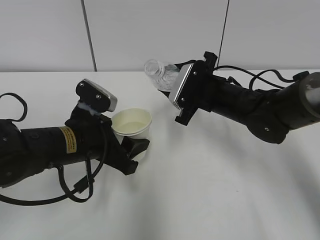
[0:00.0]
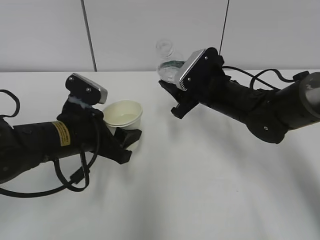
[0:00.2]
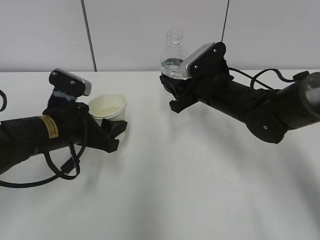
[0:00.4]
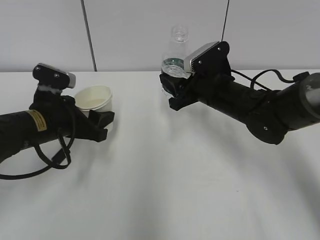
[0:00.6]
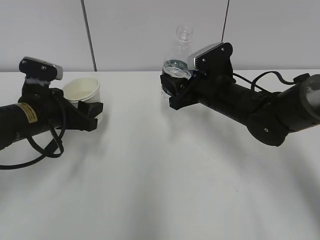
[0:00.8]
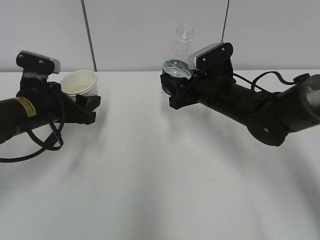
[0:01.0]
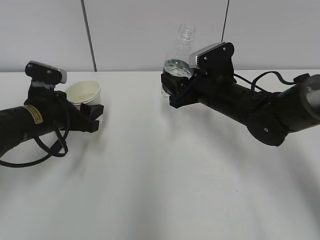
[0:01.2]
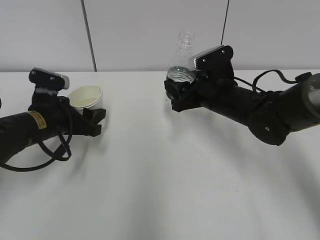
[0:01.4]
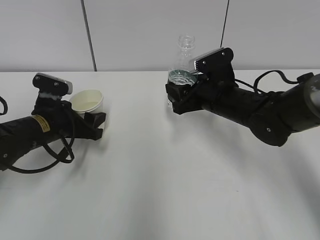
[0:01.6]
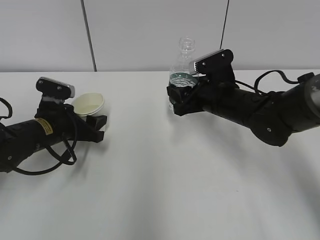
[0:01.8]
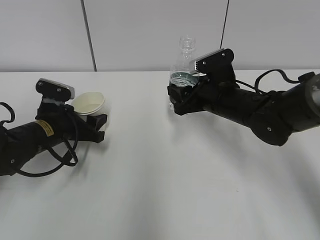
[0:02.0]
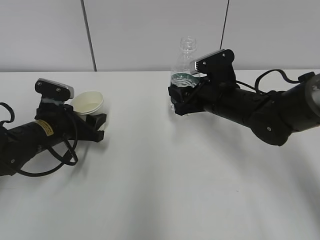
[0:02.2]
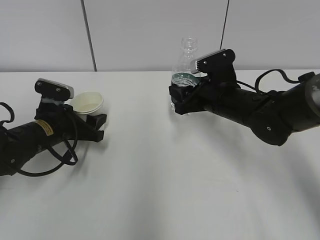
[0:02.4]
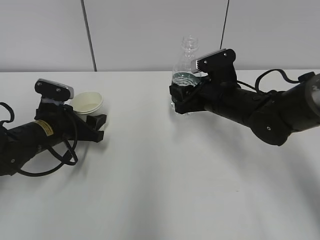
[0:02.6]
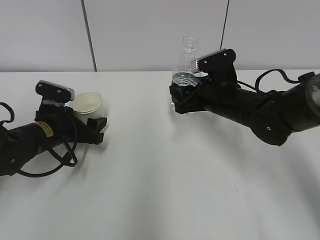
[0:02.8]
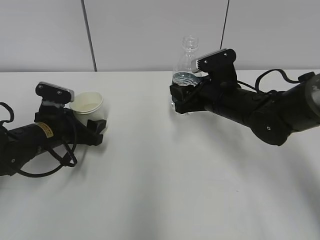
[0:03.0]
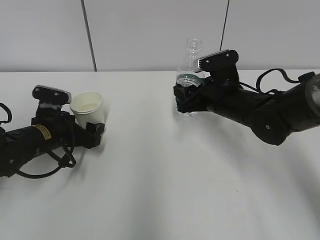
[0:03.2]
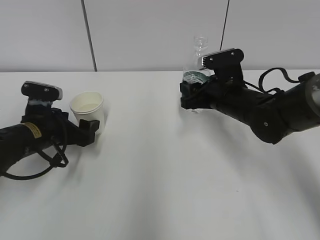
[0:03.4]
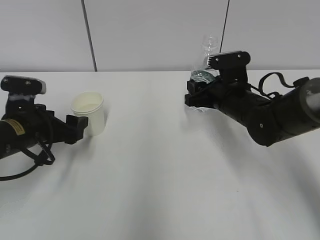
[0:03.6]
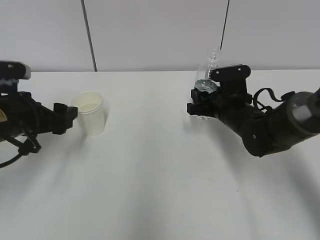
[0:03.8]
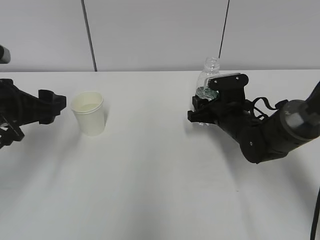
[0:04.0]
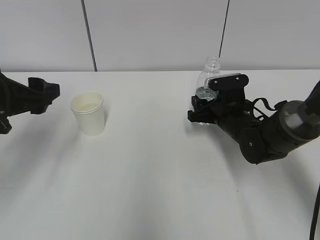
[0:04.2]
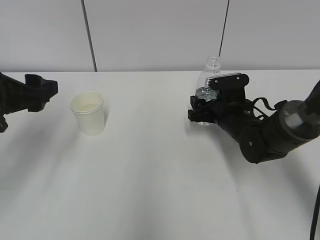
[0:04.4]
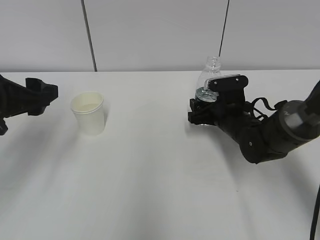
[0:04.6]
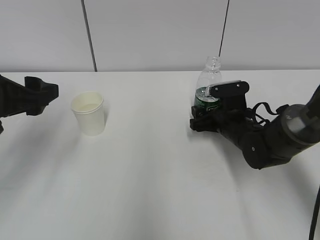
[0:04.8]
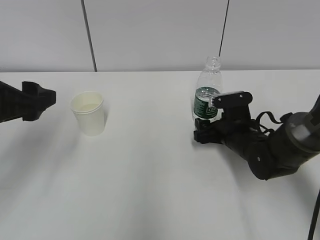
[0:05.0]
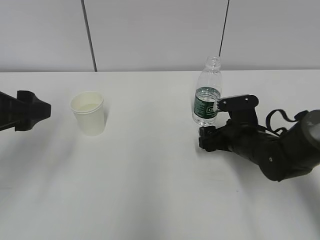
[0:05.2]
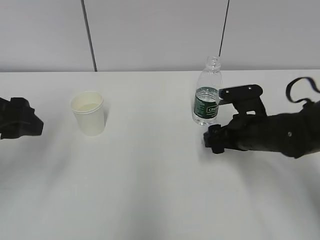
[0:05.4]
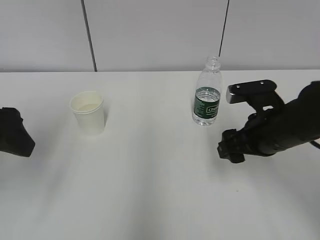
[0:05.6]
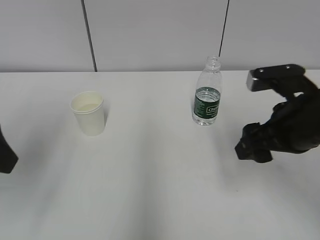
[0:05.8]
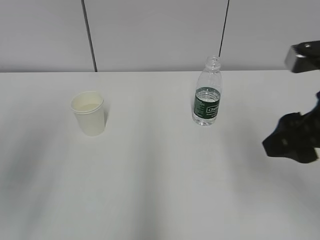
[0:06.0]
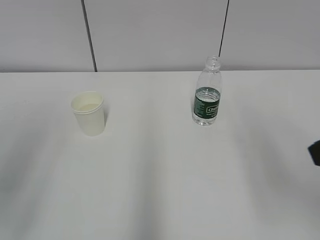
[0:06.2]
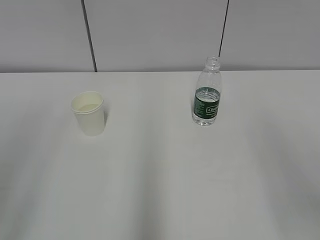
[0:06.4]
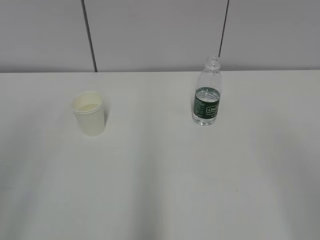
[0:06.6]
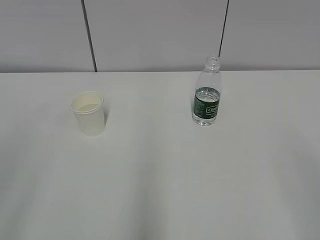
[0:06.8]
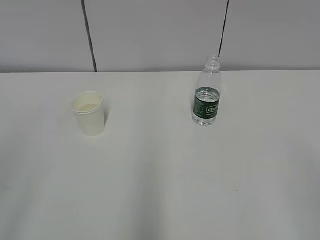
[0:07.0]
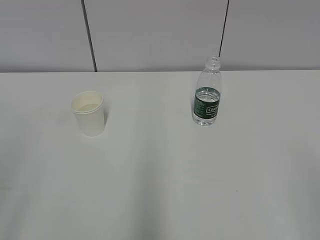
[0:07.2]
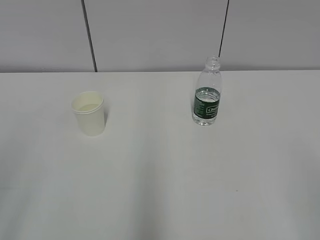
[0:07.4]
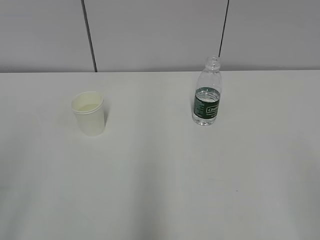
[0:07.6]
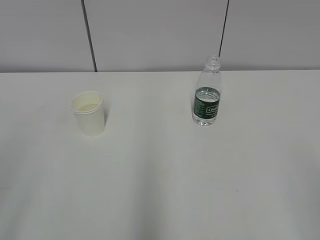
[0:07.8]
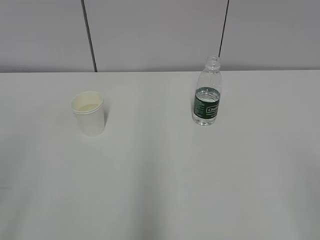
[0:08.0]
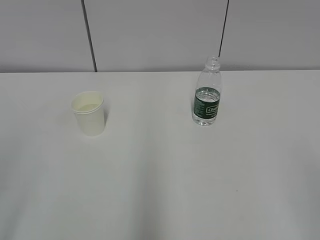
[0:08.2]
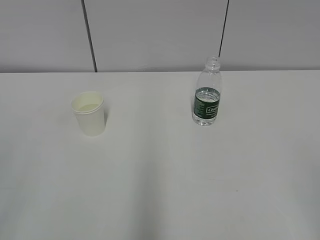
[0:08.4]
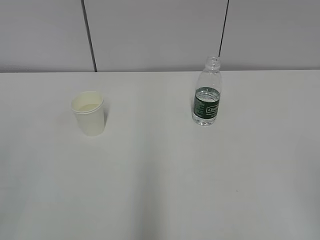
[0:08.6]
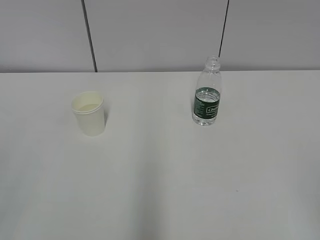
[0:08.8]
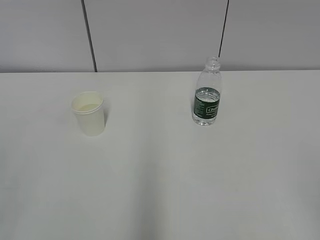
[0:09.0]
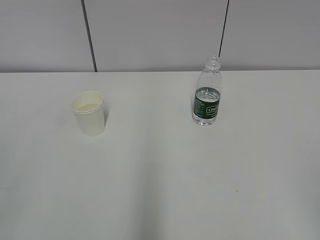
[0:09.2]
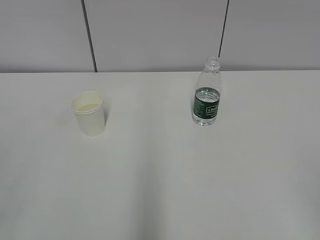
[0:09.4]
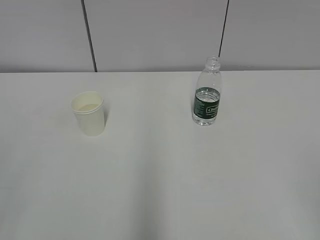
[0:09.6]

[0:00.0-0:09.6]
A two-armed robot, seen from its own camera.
0:00.0 to 0:01.6: The left gripper moves to the left and forward, roughly 10 cm.
0:01.6 to 0:03.2: The left gripper opens up.
0:03.2 to 0:04.8: The left gripper is displaced upward and backward by some 20 cm. Meanwhile the right gripper moves downward, roughly 5 cm, and opens.
0:04.8 to 0:06.4: The left gripper moves backward and upward, roughly 20 cm; the right gripper shifts some 40 cm backward and upward.

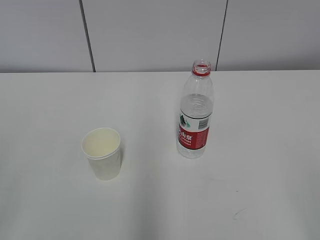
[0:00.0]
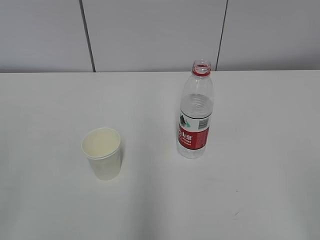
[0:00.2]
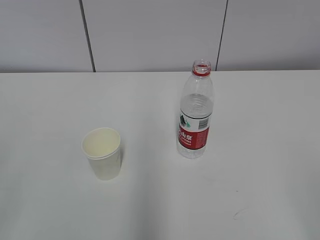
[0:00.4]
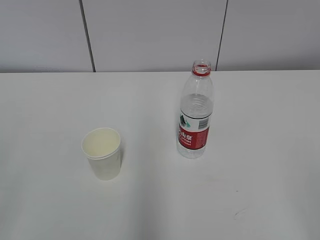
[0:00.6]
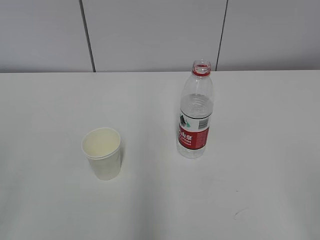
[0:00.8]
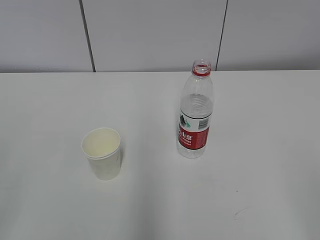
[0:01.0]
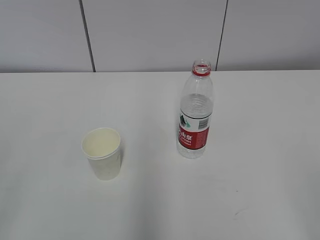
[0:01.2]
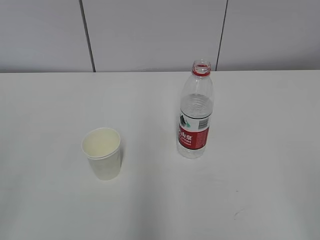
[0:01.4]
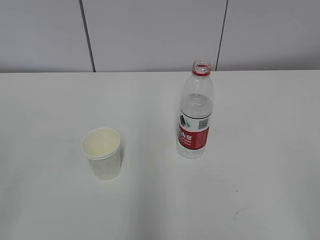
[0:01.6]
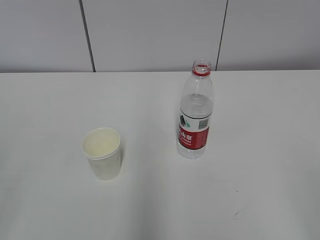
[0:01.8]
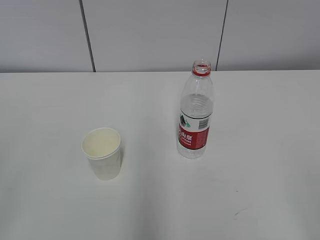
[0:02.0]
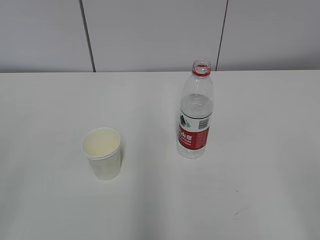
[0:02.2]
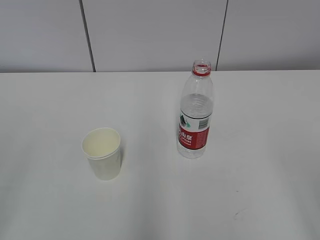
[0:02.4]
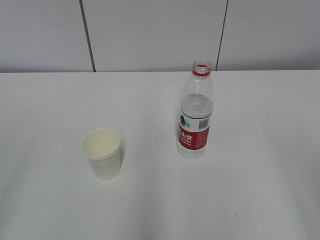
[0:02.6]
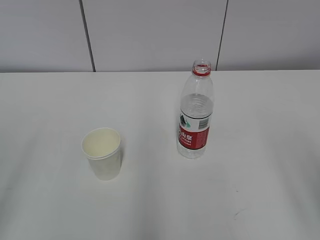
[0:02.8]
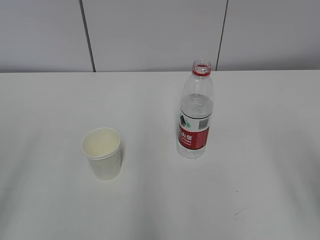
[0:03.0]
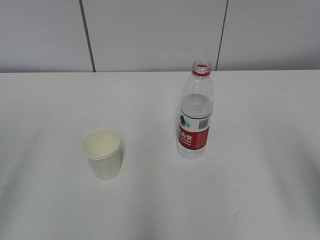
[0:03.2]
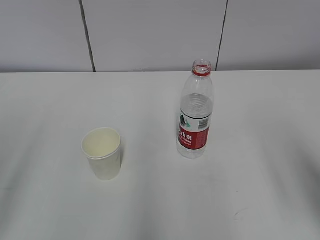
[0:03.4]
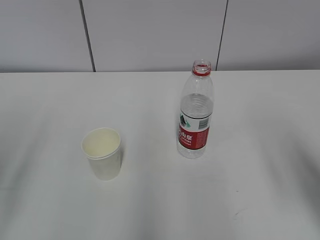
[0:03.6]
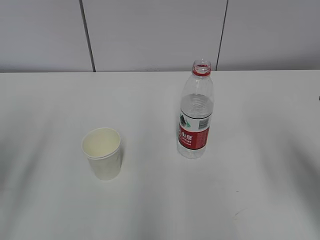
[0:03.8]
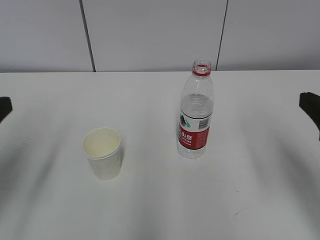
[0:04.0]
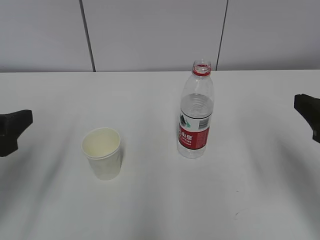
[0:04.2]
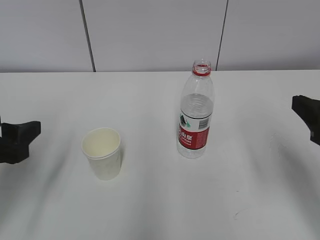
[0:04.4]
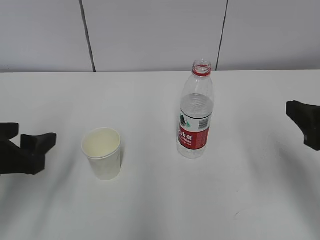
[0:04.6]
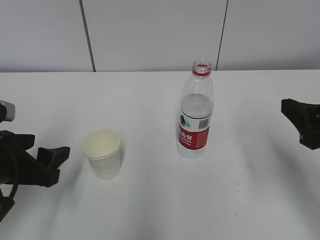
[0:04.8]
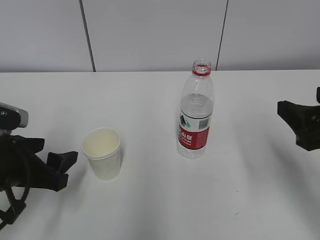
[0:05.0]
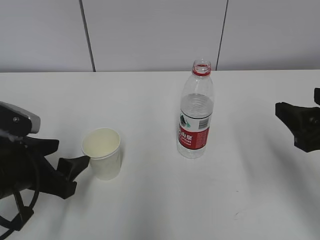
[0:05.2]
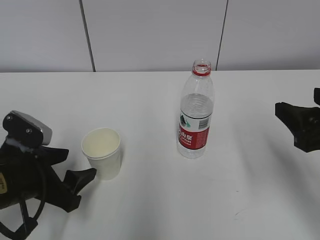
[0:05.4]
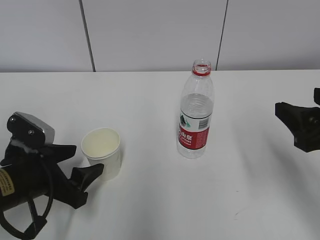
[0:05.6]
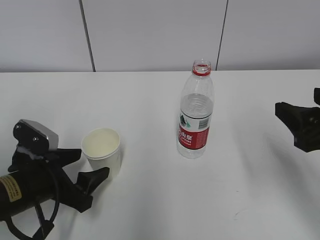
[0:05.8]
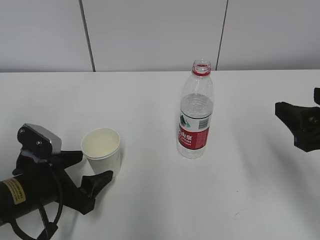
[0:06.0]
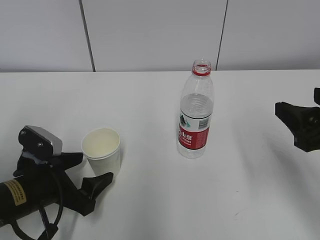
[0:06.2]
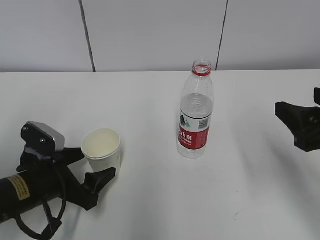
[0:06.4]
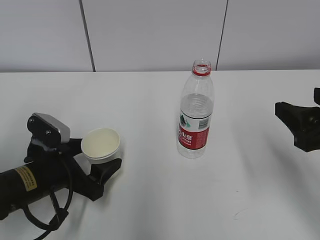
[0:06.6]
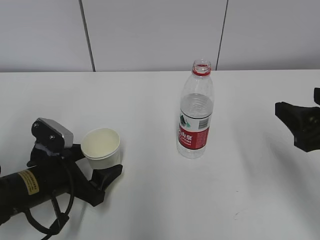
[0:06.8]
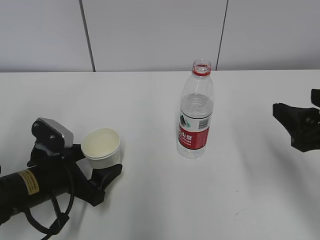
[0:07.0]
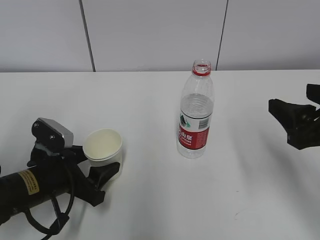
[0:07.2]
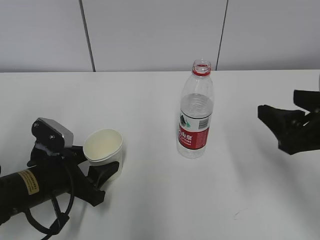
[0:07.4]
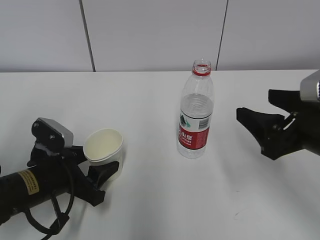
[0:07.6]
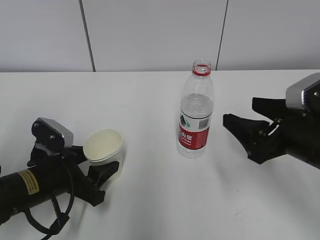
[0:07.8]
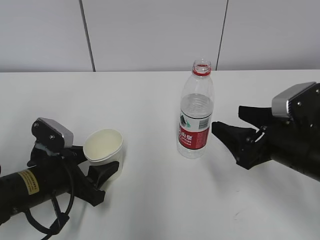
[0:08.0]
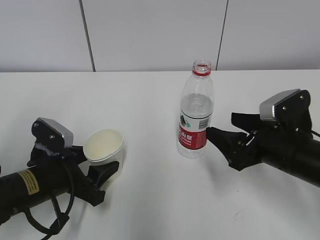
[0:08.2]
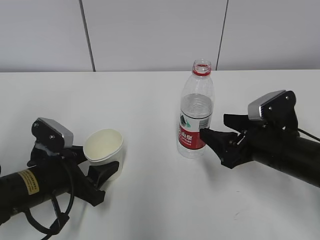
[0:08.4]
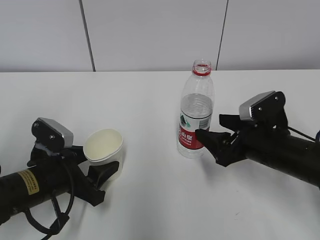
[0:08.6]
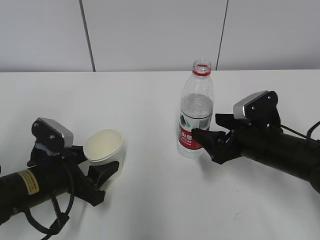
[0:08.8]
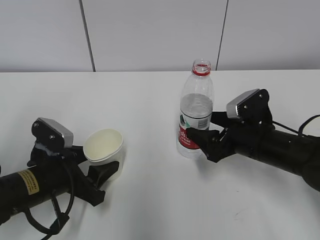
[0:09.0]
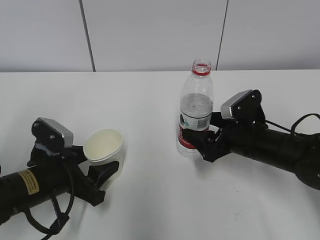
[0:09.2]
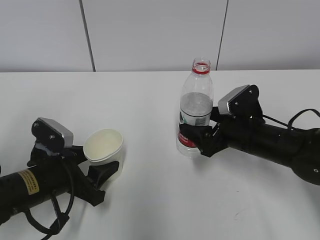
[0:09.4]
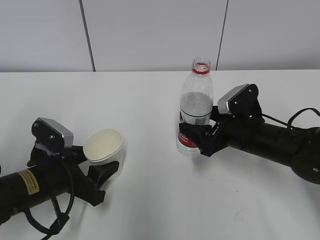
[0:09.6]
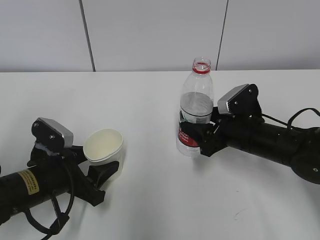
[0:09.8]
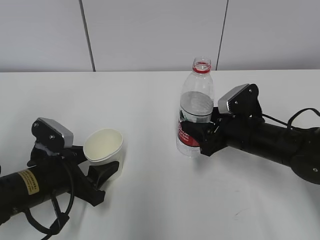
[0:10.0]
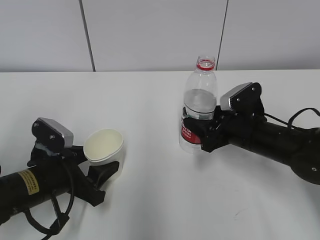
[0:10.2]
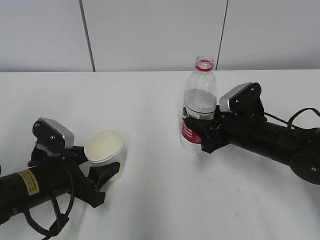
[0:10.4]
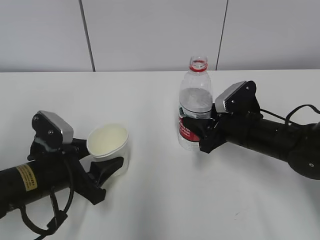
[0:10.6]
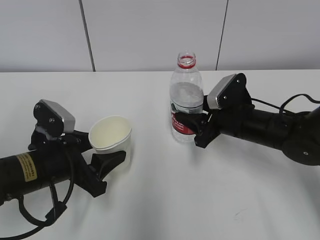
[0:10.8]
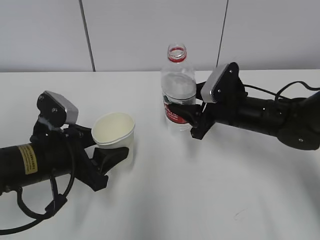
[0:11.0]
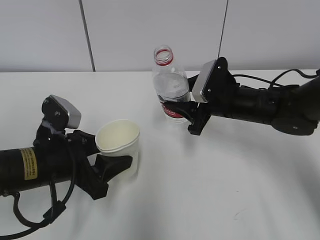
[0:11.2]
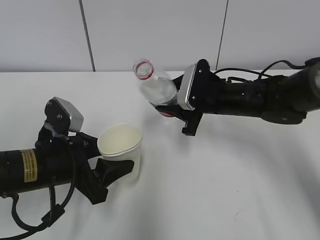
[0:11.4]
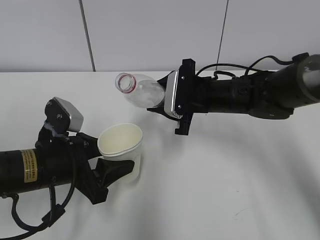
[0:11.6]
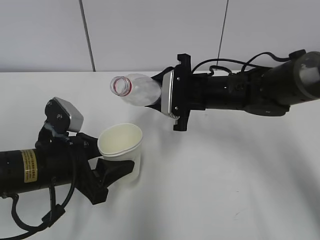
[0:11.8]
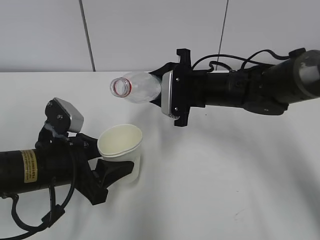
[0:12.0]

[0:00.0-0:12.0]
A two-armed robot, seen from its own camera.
Step, 0:00.0 to 0:08.6: Grab the paper cup with the left hand.
Step, 0:08.8 to 0:10.8: Lift the paper cup with the left hand.
0:03.0 to 0:04.4: The right gripper is displaced forward by about 10 cm. Meanwhile the left gripper moves forward and downward, approximately 15 cm.
0:04.4 to 0:06.0: The left gripper moves downward and to the right, roughly 15 cm, and opens up.
0:06.0 to 0:07.6: The left gripper closes.
0:07.6 to 0:09.0: The right gripper shifts some 15 cm downward and forward.
0:09.0 to 0:10.4: The right gripper closes its fingers.
0:10.4 to 0:12.0: The right gripper goes about 10 cm to the left, upward and forward.

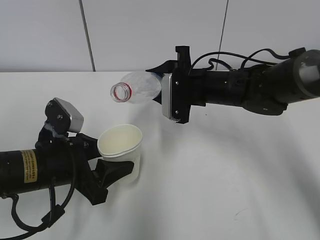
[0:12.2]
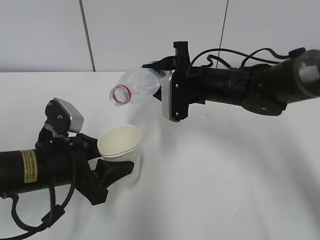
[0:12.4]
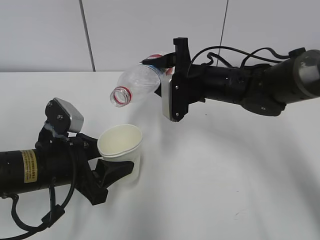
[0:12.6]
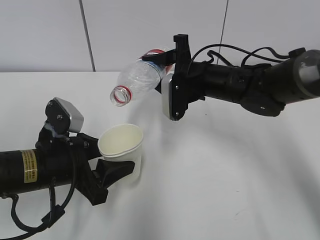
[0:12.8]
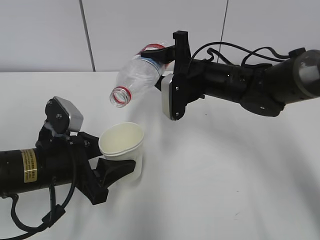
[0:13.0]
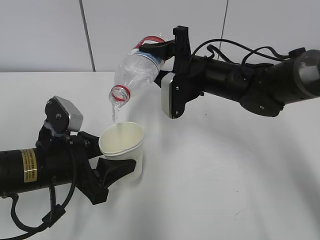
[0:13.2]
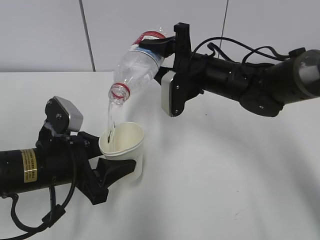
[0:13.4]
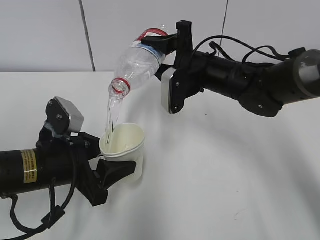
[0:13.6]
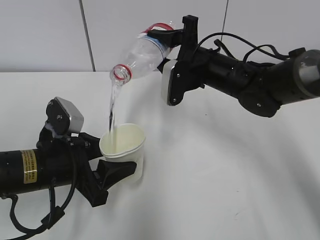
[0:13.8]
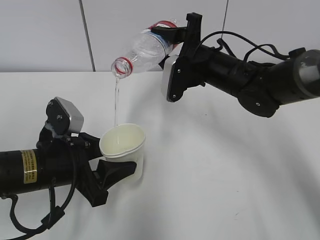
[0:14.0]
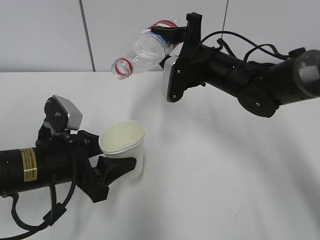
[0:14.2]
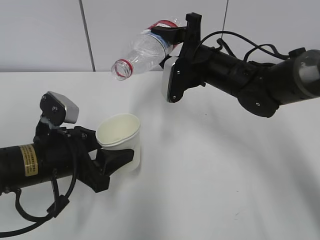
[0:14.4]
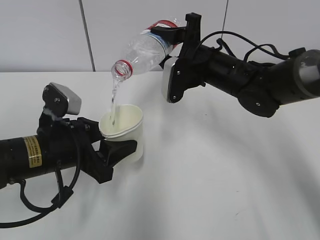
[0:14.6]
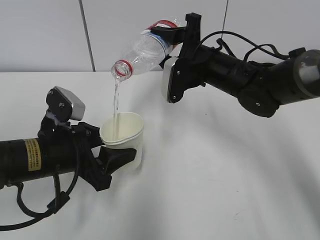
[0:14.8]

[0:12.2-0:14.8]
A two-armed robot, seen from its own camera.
0:13.4 to 0:14.8: The grippers move only a little.
